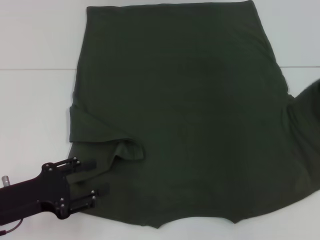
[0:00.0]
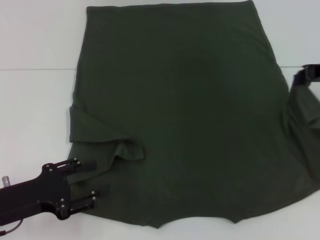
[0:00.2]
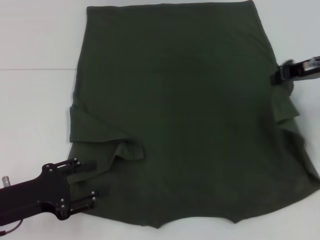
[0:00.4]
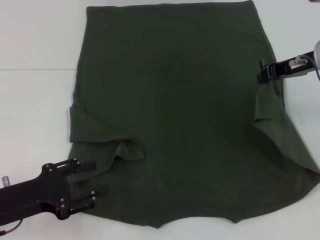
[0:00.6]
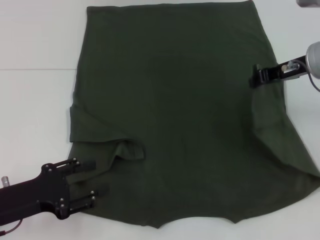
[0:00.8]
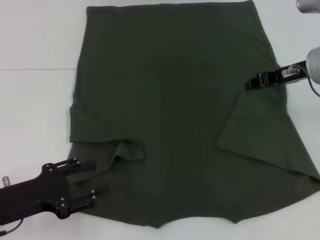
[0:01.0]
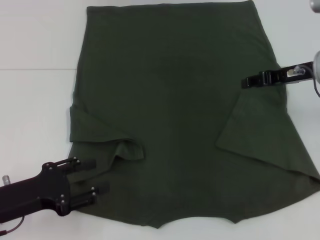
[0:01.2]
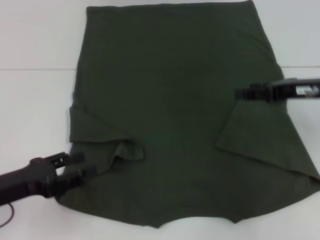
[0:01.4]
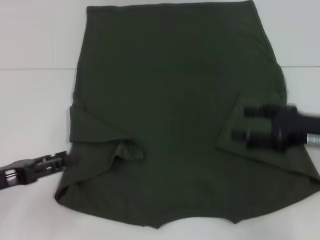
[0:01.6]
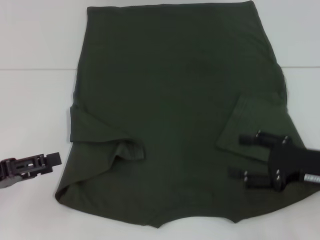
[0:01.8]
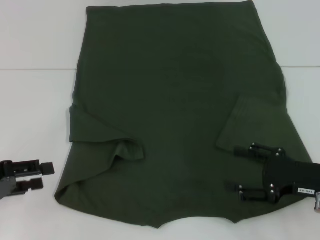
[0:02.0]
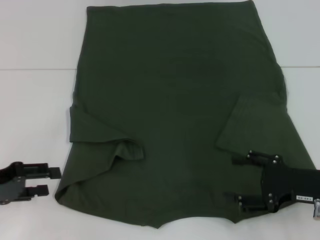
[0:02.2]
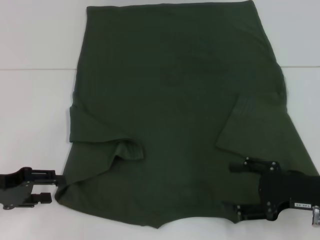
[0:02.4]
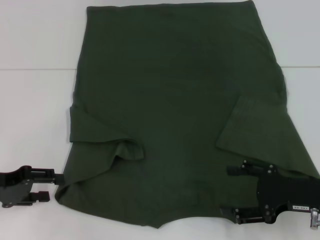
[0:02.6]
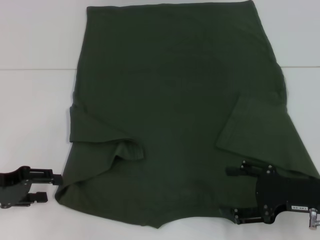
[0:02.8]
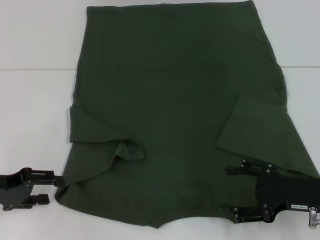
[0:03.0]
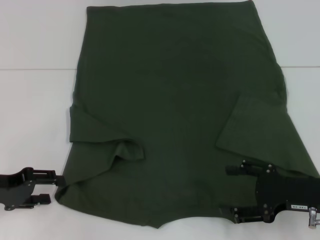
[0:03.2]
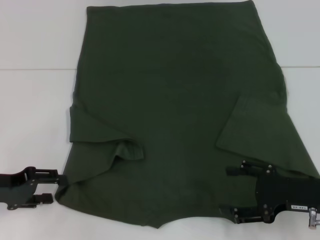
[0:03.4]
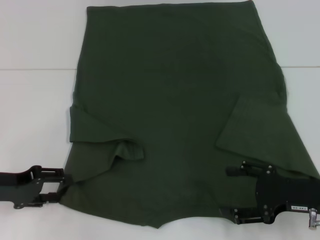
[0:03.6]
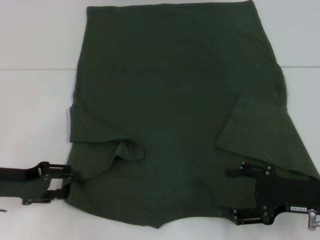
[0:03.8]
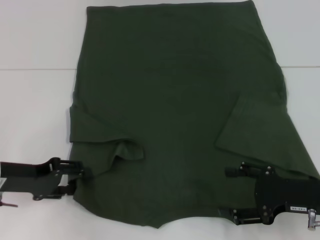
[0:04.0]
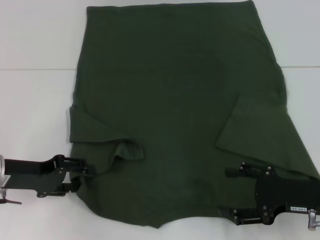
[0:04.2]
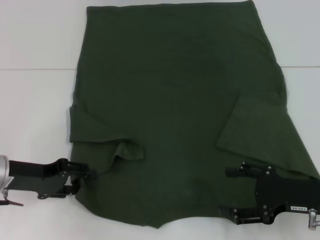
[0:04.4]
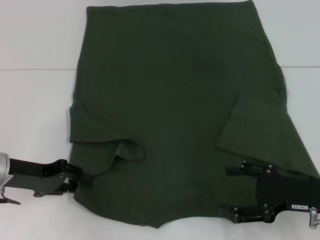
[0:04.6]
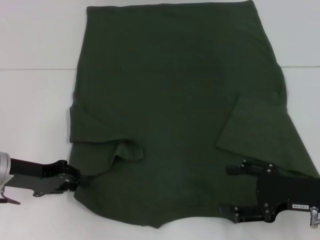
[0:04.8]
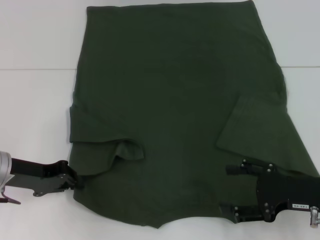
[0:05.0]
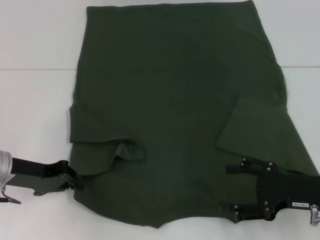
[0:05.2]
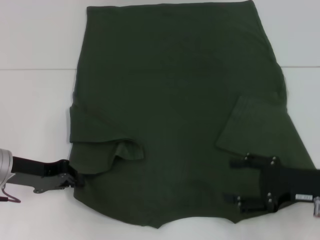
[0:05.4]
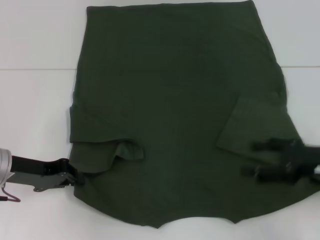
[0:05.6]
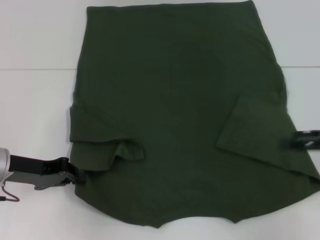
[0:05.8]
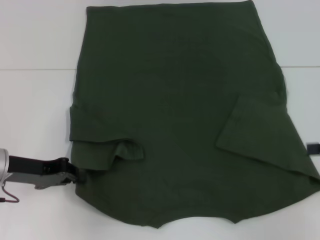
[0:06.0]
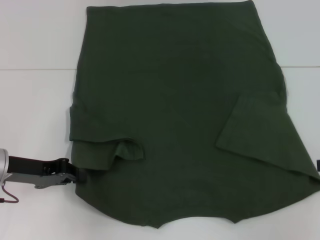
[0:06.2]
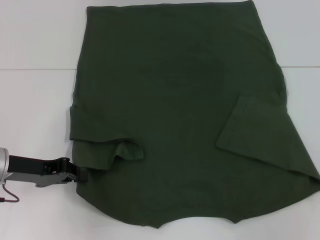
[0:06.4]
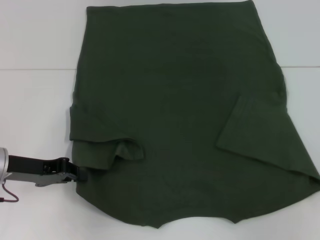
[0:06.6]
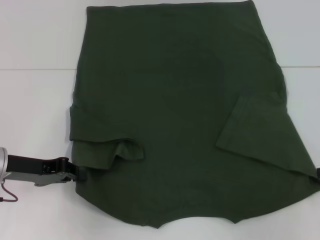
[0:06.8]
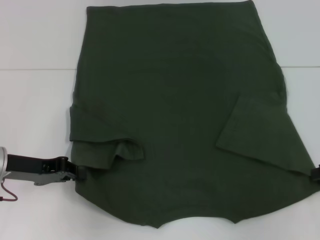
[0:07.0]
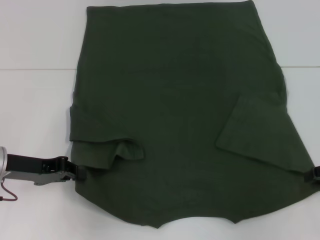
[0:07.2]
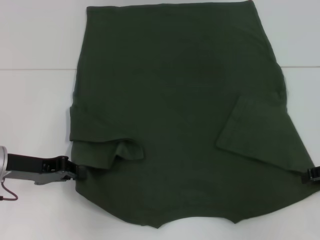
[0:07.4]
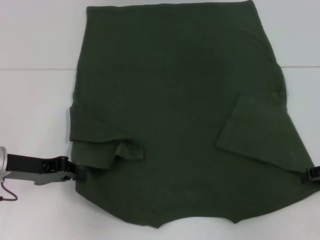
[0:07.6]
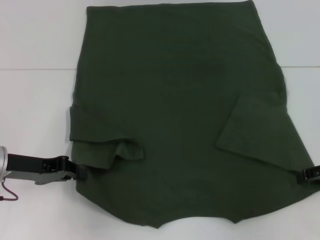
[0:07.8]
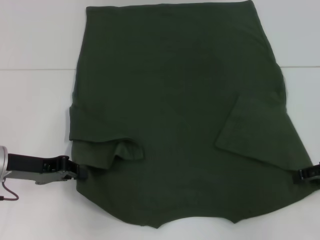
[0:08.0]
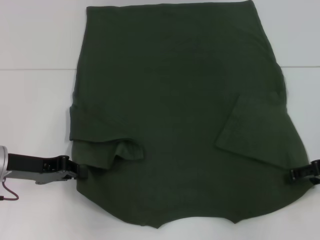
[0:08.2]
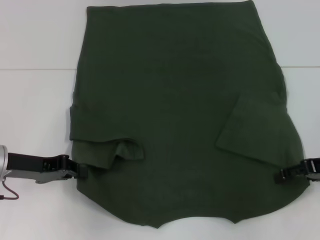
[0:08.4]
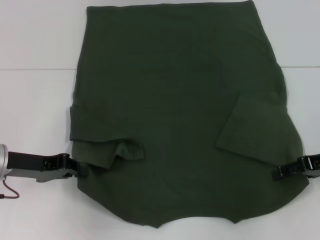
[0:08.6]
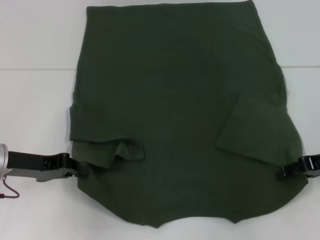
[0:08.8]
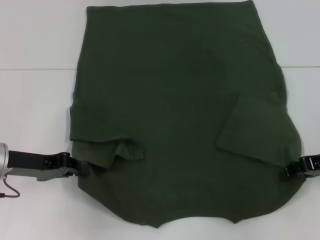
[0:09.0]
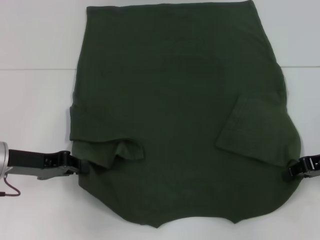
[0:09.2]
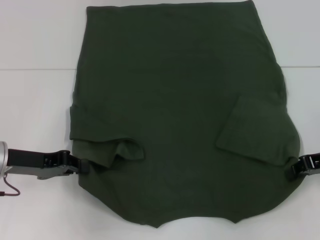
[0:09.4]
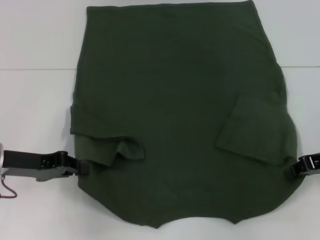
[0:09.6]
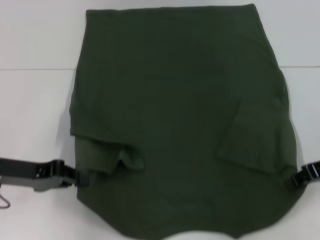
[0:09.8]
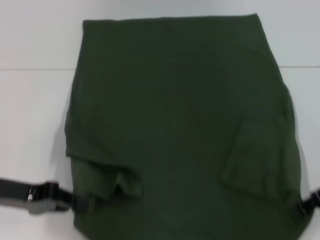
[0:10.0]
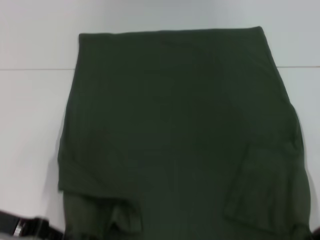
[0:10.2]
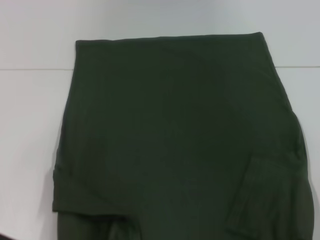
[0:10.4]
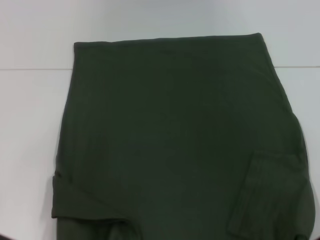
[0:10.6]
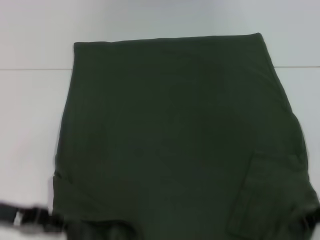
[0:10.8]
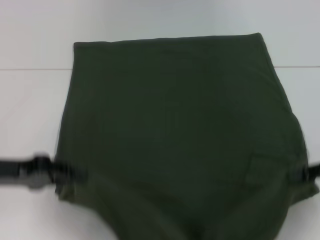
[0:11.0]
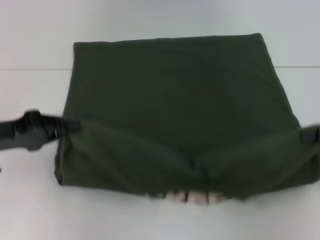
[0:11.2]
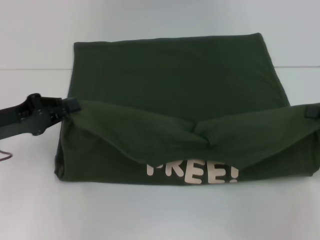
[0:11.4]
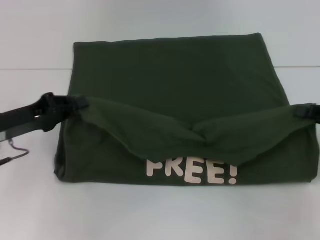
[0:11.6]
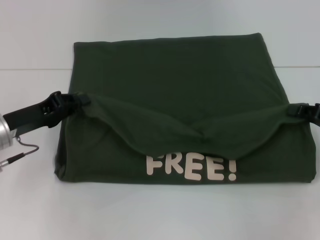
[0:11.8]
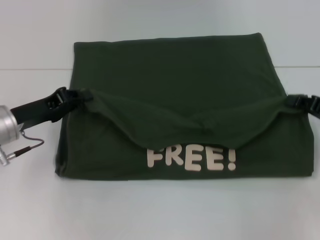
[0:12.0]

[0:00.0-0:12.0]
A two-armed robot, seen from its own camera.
Step, 0:01.2 to 0:05.2: Grab the bottom left corner with your left hand.
Step, 0:05.4 to 0:09.6: Grab the bottom right corner with your right hand.
0:00.0 to 0:01.6: The right gripper heads backward and to the left, covering about 10 cm, and opens.
0:01.6 to 0:03.0: The right gripper heads downward, covering about 5 cm.
0:03.0 to 0:04.4: The left gripper moves roughly 5 cm.
0:04.4 to 0:06.0: The right gripper moves to the right and upward, about 15 cm. Meanwhile the left gripper closes.
0:07.6 to 0:09.0: There are only small adjustments of the grippers.
0:09.0 to 0:10.4: Both grippers travel together backward, about 5 cm. The right gripper closes up.
0:10.4 to 0:12.0: The left gripper shifts some 10 cm forward. Meanwhile the right gripper shifts some 5 cm forward.

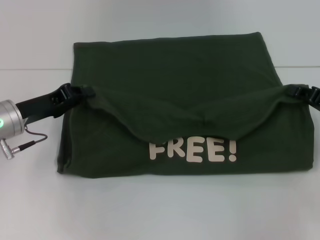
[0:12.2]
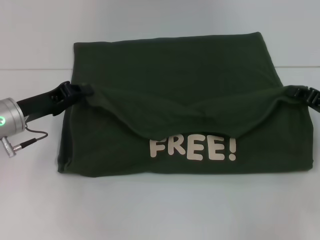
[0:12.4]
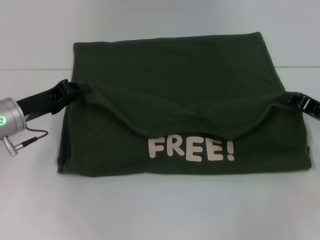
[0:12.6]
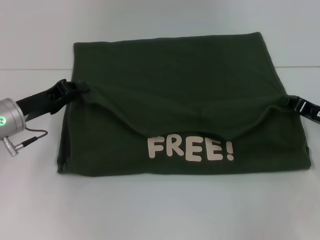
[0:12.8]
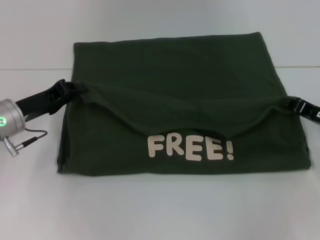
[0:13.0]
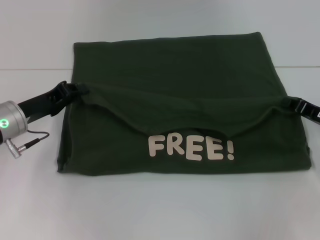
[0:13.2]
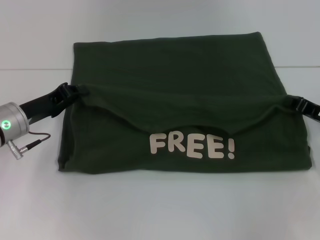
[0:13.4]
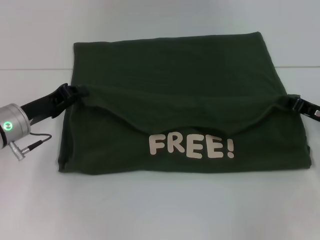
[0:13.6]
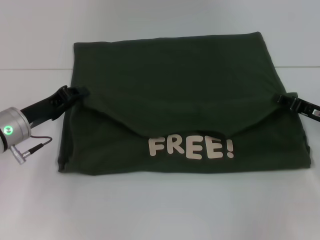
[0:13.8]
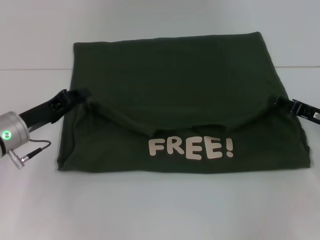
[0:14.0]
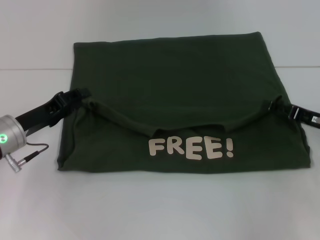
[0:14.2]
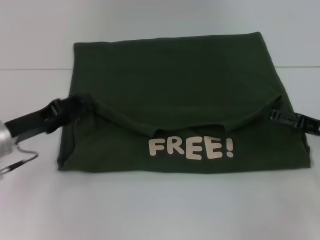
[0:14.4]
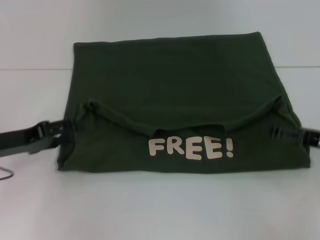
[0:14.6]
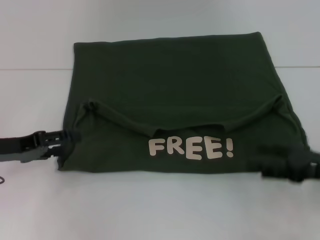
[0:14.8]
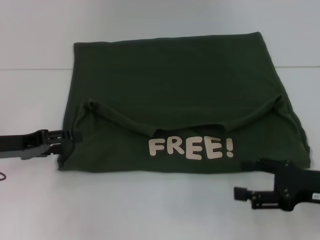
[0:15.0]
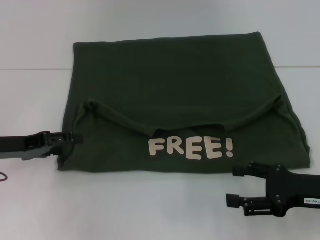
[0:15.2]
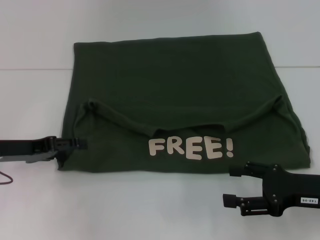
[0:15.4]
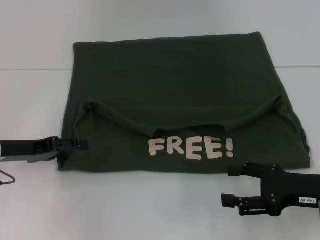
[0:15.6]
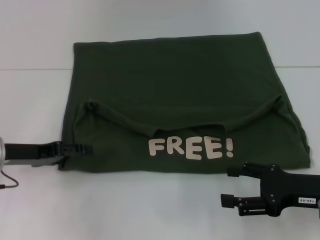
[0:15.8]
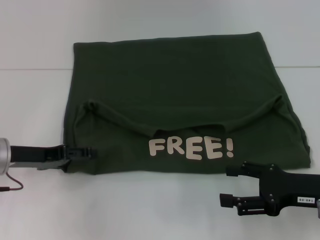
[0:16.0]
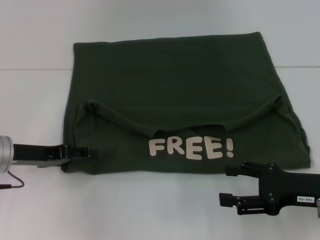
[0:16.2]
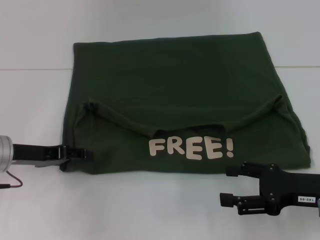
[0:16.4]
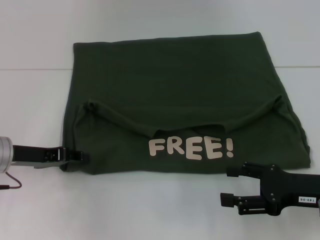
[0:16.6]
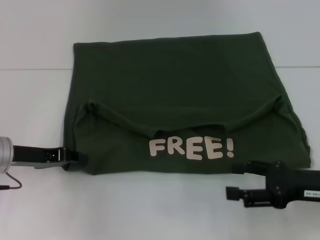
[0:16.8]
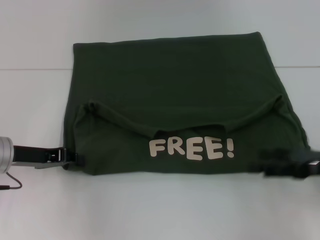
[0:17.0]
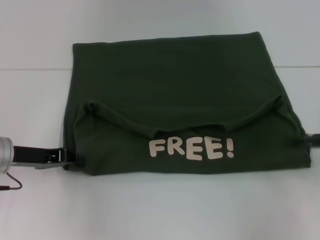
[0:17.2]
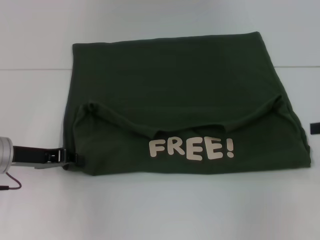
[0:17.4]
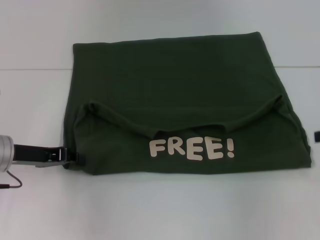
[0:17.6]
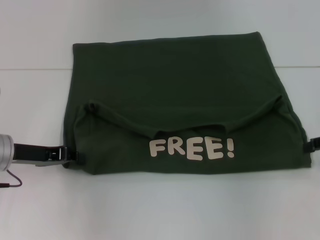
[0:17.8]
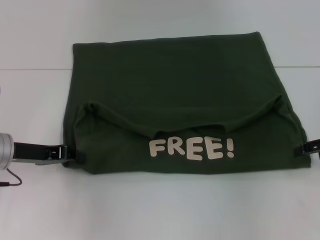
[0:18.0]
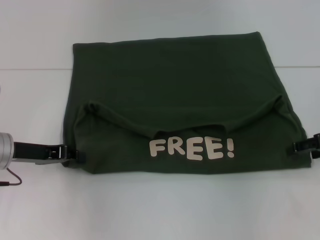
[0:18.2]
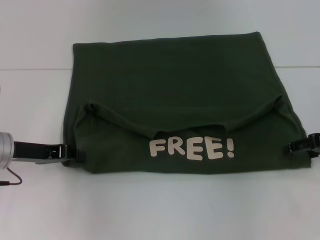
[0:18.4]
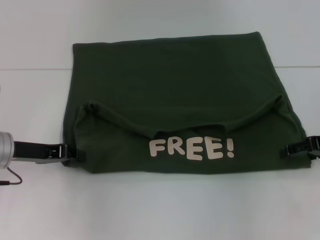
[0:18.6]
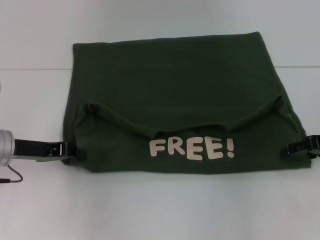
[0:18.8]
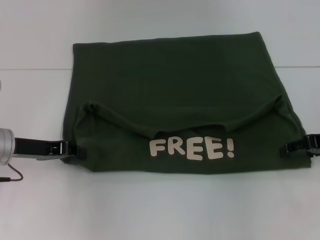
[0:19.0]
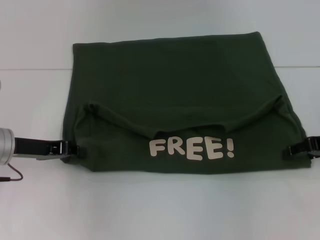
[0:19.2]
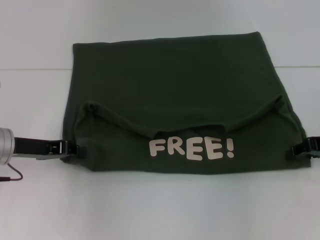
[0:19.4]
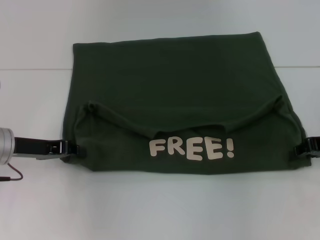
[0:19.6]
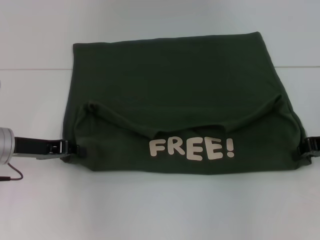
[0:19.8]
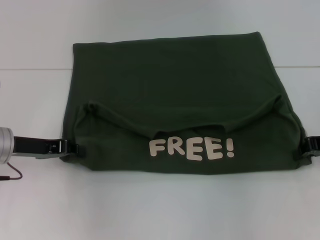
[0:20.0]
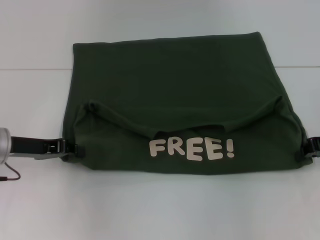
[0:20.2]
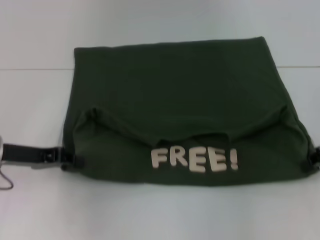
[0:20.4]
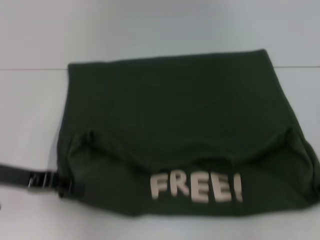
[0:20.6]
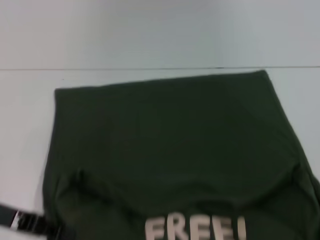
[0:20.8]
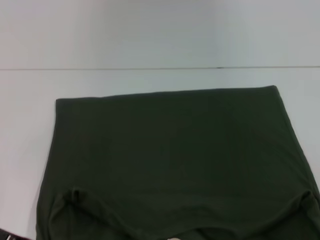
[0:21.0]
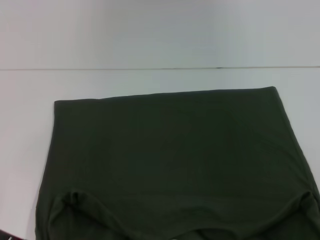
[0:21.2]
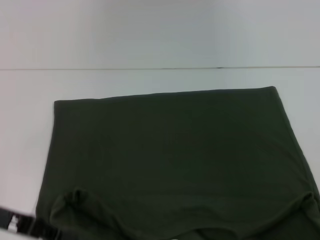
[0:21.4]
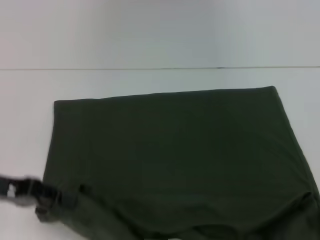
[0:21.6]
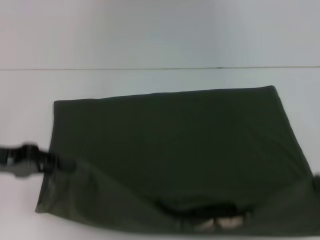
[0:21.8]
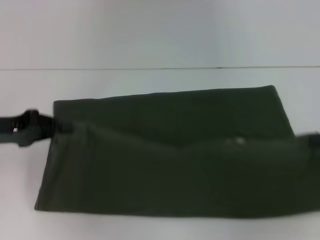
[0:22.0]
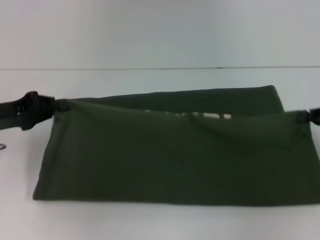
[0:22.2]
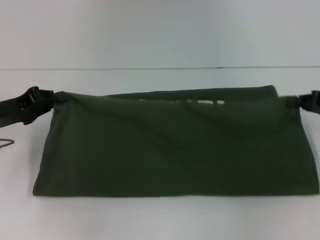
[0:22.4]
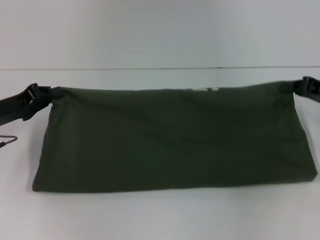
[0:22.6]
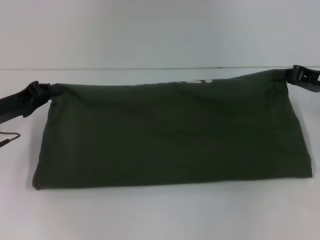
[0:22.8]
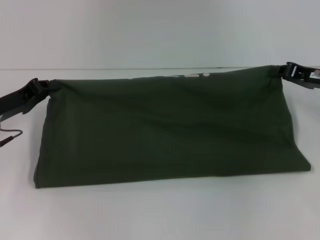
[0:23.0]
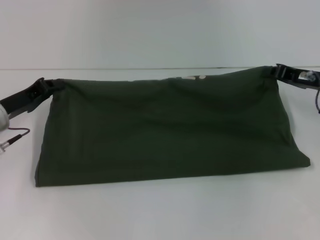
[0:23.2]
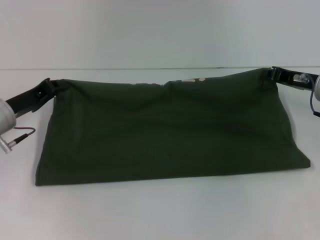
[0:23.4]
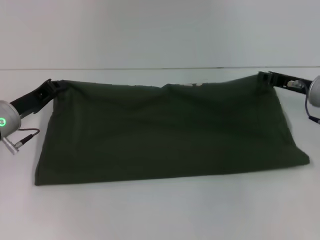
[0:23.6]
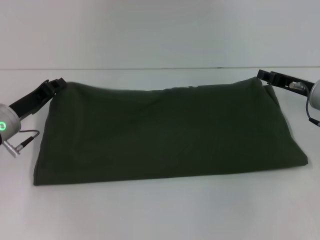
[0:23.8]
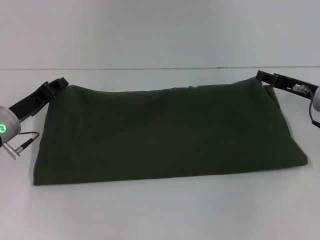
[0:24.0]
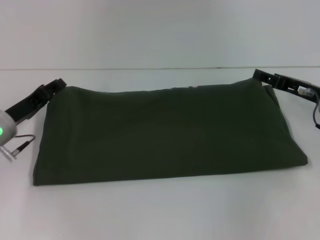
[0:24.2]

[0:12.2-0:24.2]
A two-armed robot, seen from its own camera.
Step, 0:14.2 to 0:20.8: Pull the clothes with your left hand.
Step, 0:14.2 to 0:20.8: Pull the clothes with your right hand.
Step, 0:21.0 to 0:23.8: Fold the clothes with your right hand.
0:12.2 to 0:13.8: There are only small adjustments of the grippers.
0:13.8 to 0:15.2: The left gripper shifts by about 5 cm, and opens up, while the right gripper shifts about 10 cm backward, and opens.
0:15.2 to 0:16.6: There are only small adjustments of the grippers.
0:16.6 to 0:18.2: The right gripper is displaced forward, to the right and upward by roughly 15 cm, while the left gripper closes up.
0:19.8 to 0:21.2: Both grippers travel together backward, approximately 10 cm.
0:21.2 to 0:22.6: The two grippers go roughly 10 cm forward.
0:22.6 to 0:24.2: The left gripper opens. The right gripper moves roughly 5 cm, and opens.
